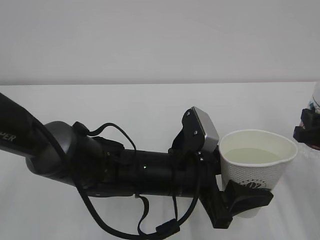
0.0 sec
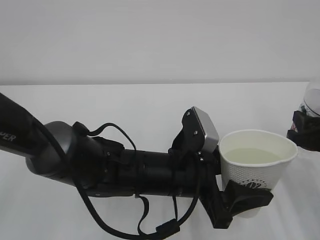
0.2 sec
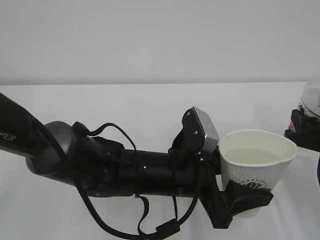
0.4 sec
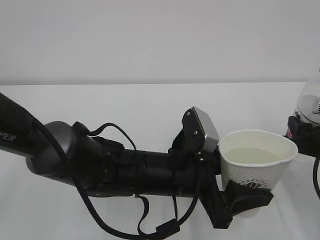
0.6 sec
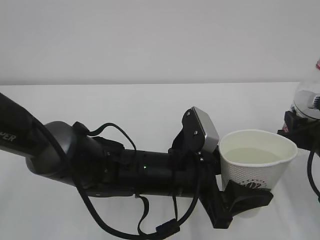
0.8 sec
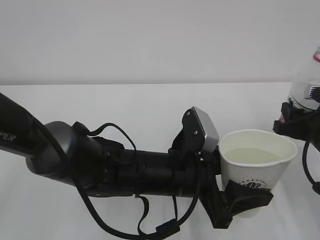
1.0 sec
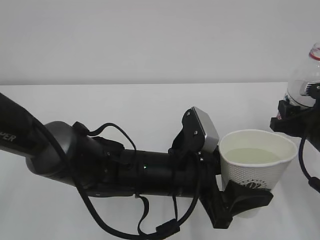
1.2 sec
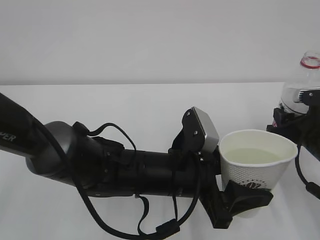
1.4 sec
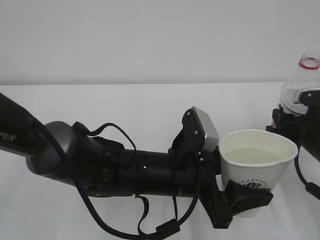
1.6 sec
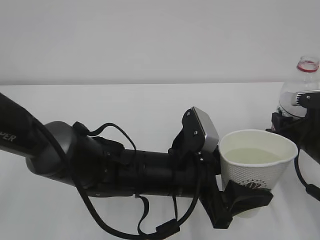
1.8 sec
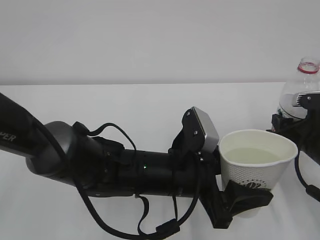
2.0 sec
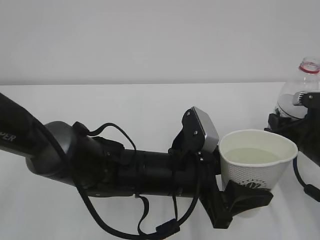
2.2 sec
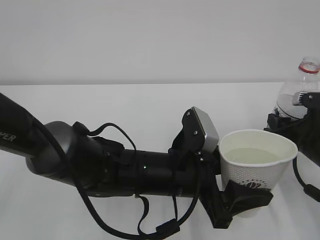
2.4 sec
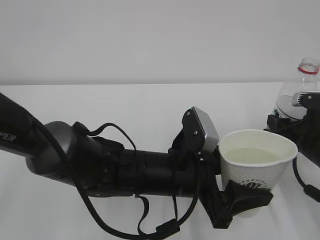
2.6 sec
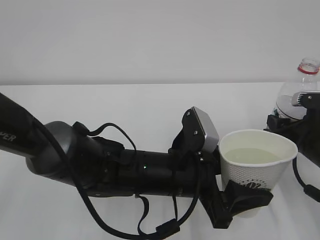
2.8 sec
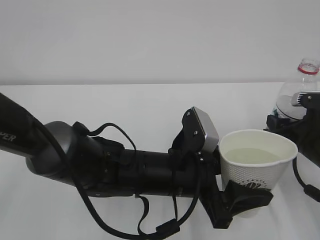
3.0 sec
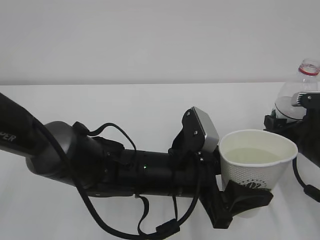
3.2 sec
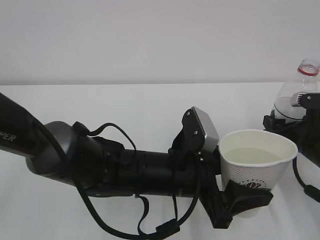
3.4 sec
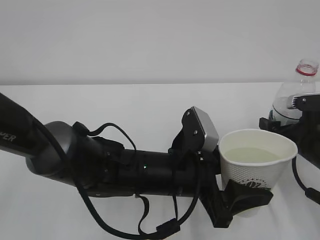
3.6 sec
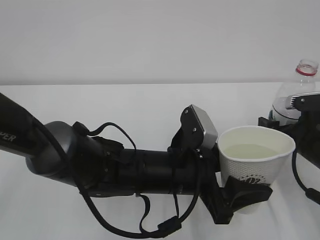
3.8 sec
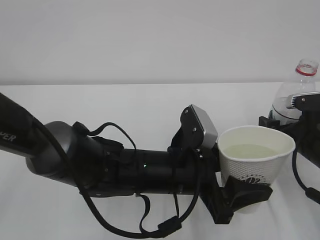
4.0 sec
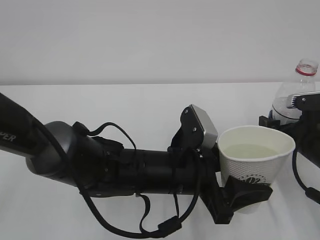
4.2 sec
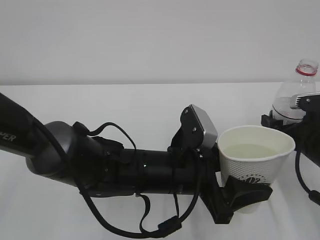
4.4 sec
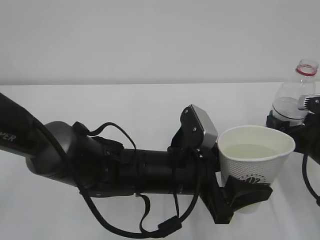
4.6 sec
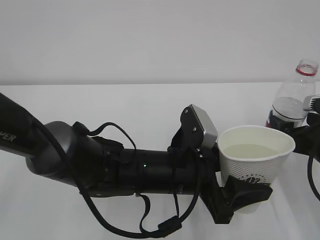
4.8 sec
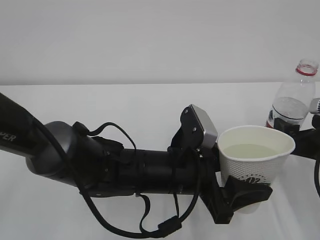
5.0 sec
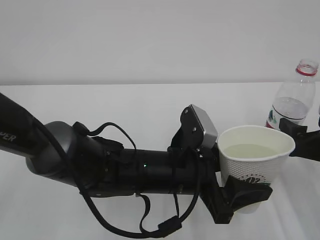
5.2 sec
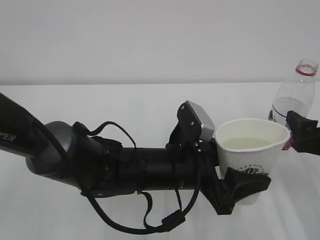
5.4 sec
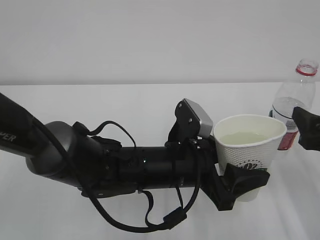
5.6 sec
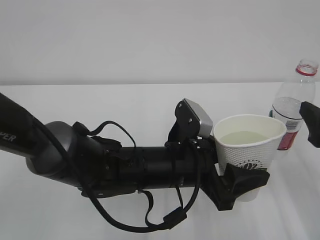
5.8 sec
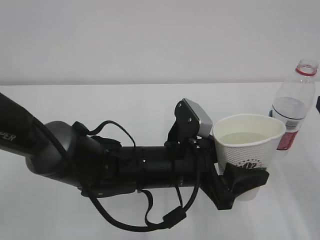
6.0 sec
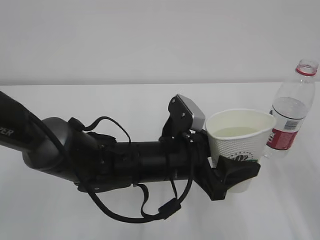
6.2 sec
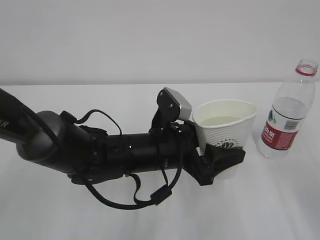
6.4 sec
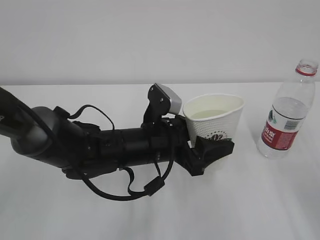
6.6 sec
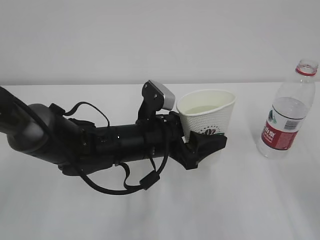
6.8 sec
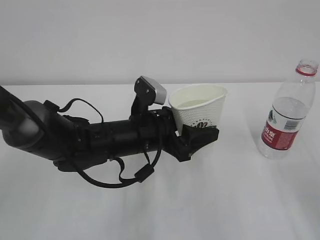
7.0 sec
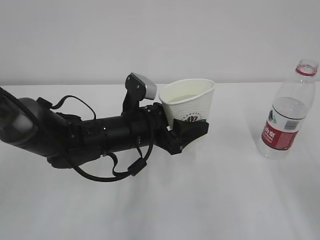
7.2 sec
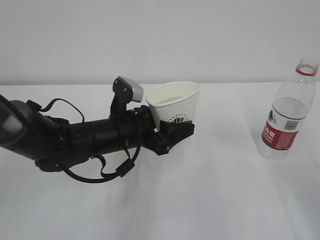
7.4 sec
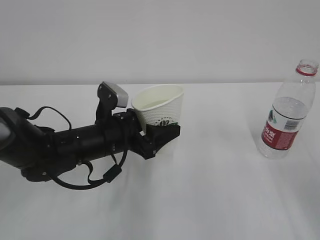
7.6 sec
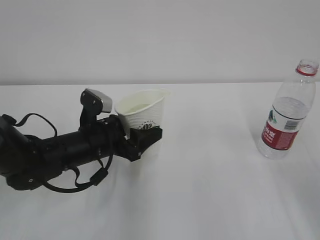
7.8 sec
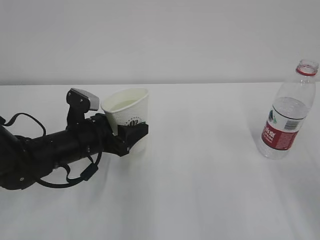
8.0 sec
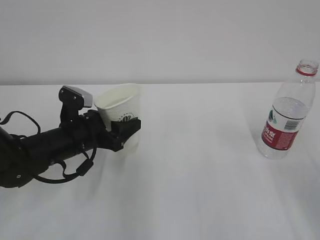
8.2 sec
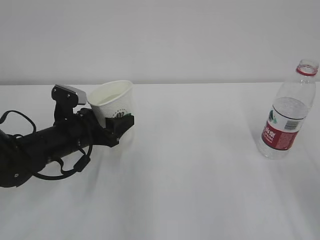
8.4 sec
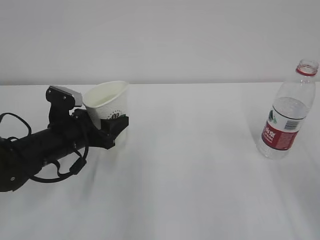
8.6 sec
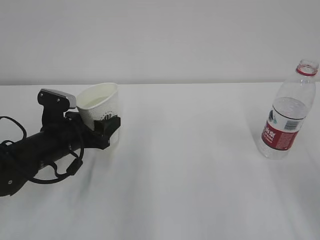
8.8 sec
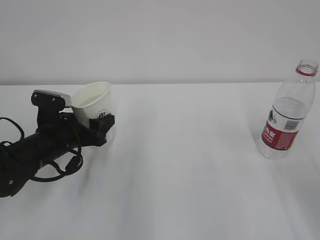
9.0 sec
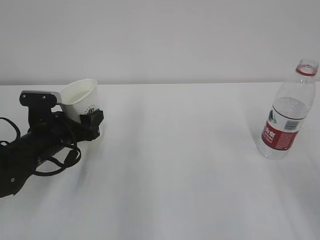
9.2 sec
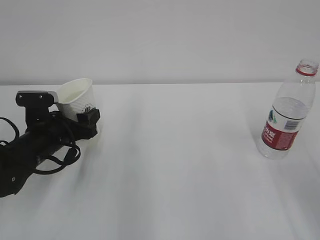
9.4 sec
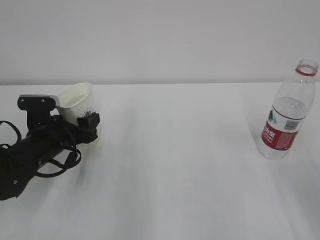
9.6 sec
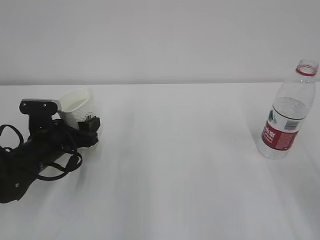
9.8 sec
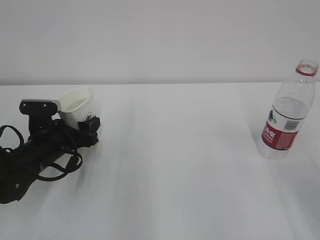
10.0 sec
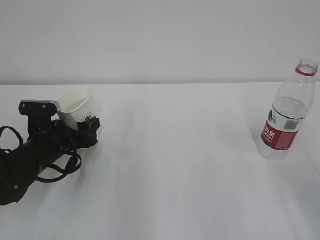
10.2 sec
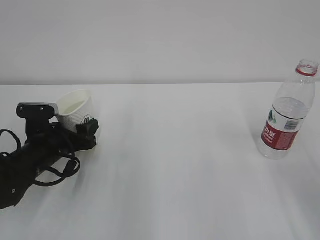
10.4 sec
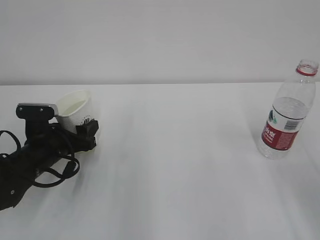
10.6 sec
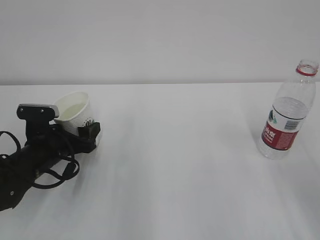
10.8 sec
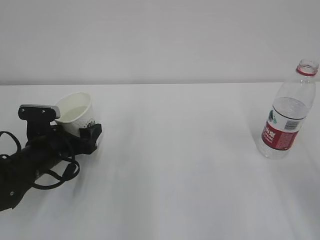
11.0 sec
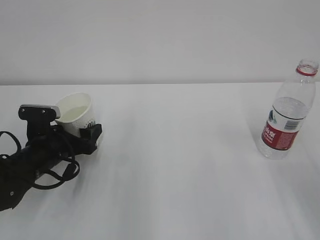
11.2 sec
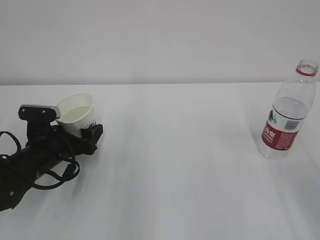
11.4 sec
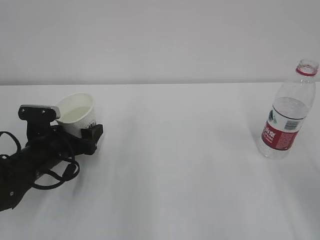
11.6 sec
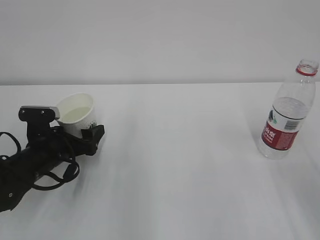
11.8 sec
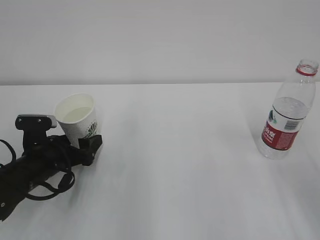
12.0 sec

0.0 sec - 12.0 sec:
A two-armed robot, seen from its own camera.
0.0 sec - 1.6 sec: The right gripper shifts by some 5 cm.
1.6 sec - 3.0 sec: There are only small adjustments of the grippers.
3.0 sec - 4.4 sec: The right gripper opens.
4.4 sec - 6.0 sec: The right gripper travels upward and backward by some 15 cm.
6.0 sec - 7.6 sec: The left gripper heads to the left and forward, covering some 15 cm.
7.6 sec - 9.0 sec: The left gripper shifts some 10 cm to the left.
9.0 sec - 10.4 sec: The grippers stay close to where they were, moving slightly.
10.4 sec - 12.0 sec: The left gripper opens up.

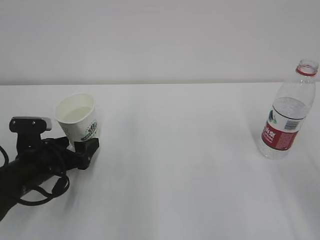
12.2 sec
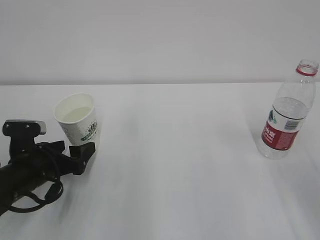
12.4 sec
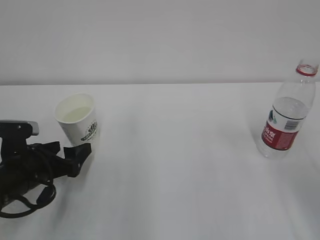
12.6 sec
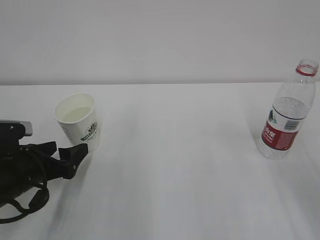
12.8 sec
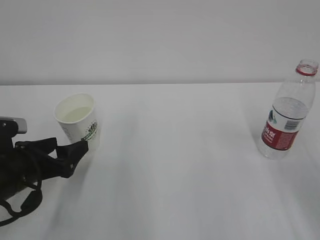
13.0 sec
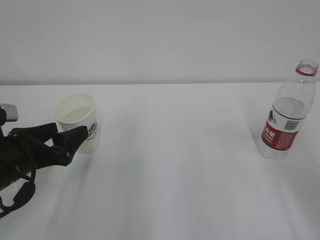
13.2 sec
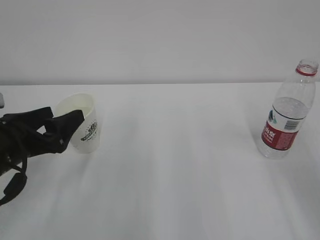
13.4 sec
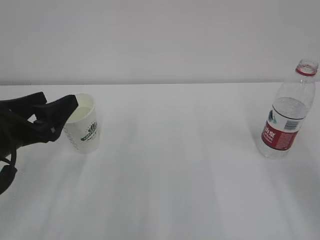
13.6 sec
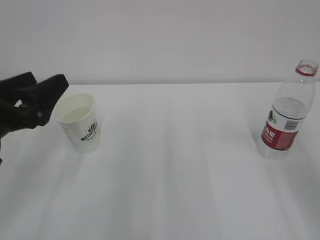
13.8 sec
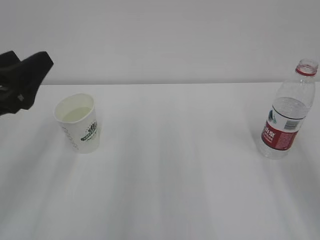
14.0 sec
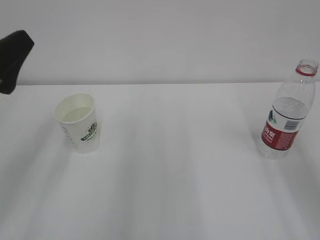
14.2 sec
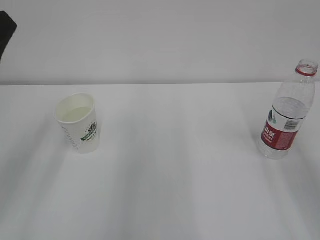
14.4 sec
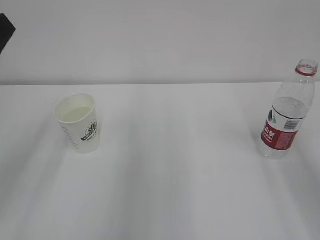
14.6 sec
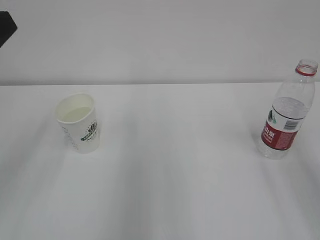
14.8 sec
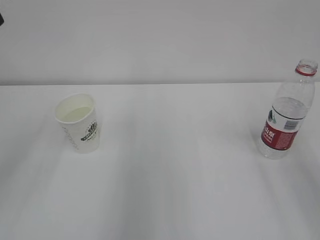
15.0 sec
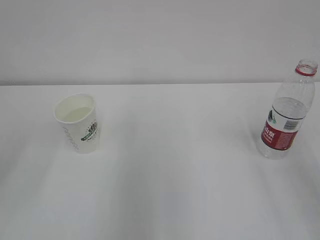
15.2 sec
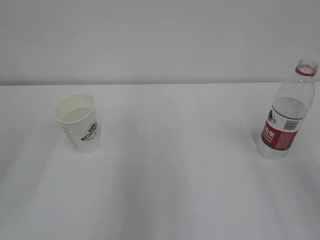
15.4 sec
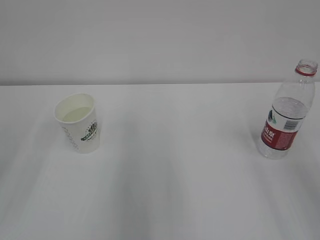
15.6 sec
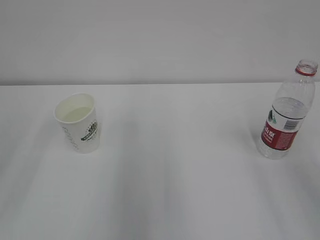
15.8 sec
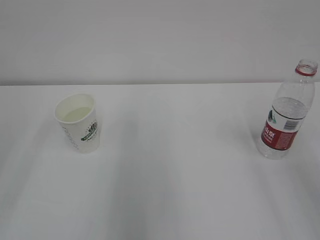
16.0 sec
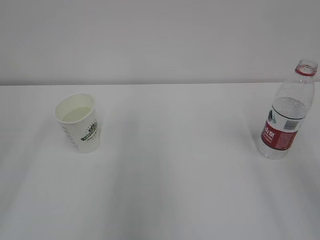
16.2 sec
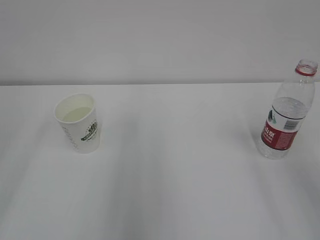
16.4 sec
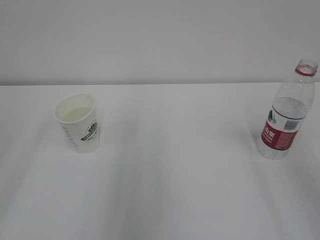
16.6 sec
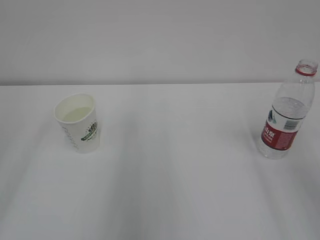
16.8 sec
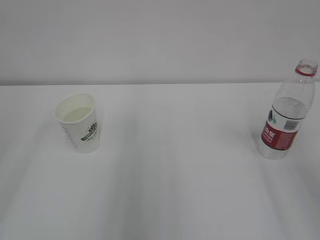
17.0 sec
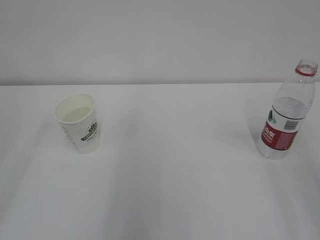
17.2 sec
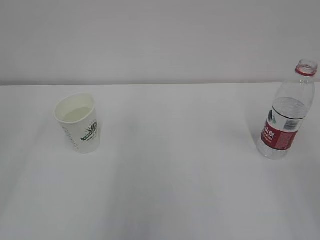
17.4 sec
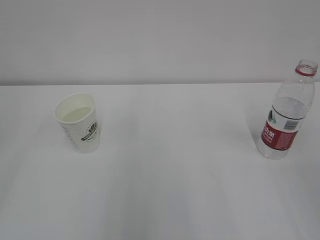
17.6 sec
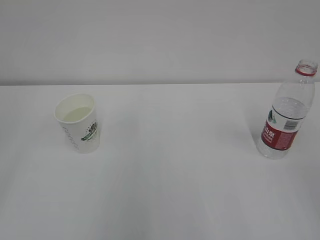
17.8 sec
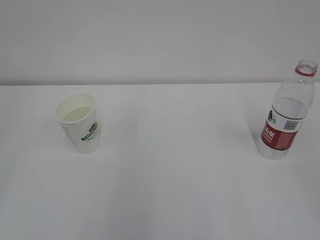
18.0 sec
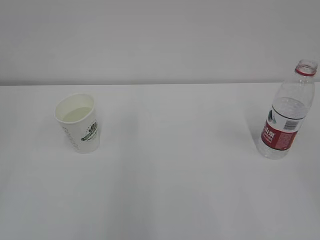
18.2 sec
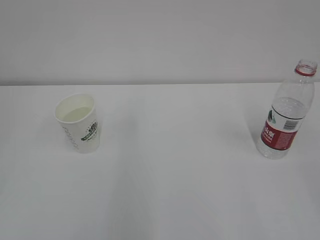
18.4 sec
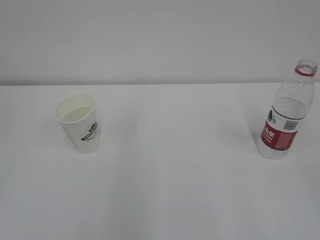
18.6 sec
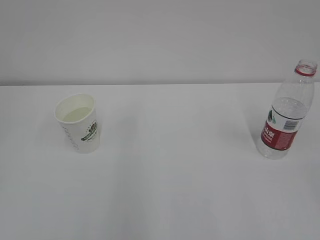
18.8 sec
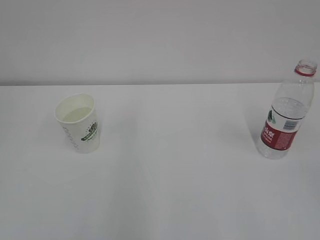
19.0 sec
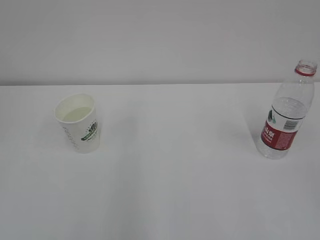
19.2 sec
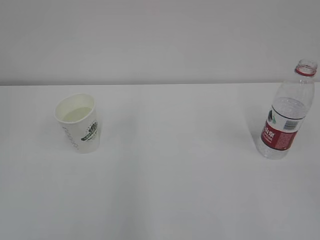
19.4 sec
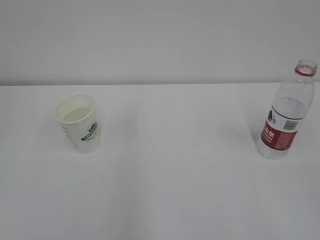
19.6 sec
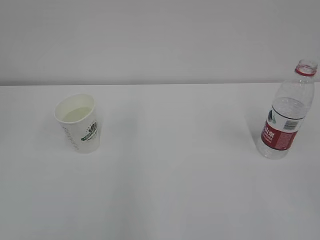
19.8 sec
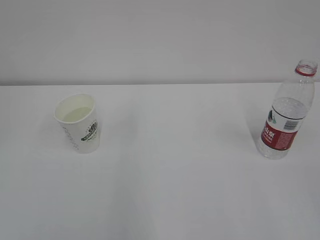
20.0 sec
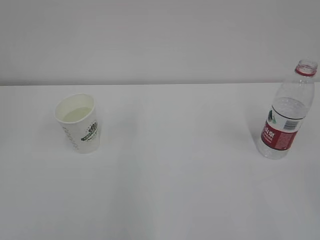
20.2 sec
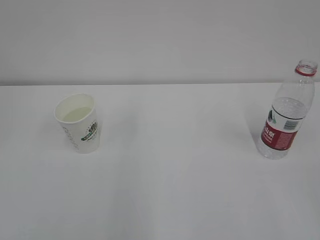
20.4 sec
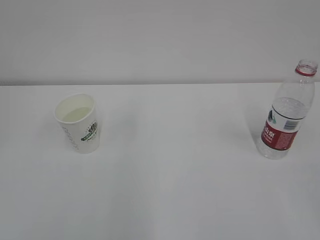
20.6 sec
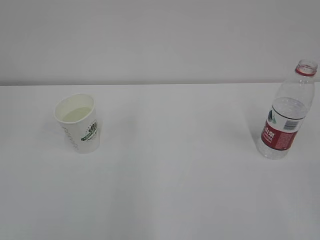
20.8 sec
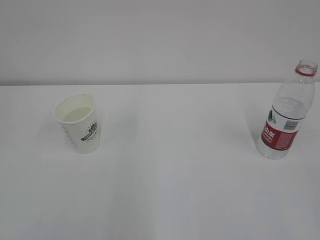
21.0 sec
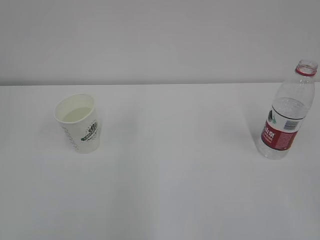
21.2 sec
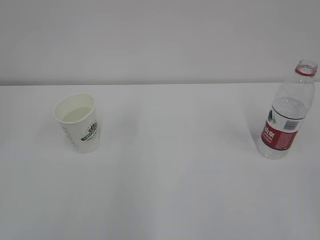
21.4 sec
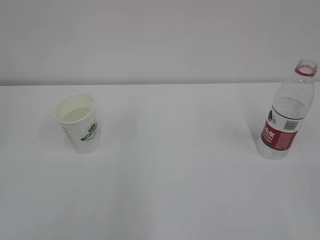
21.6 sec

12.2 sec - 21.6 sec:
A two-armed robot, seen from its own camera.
12.2 sec - 13.8 sec: The left gripper shifts about 15 cm upward and backward.
13.8 sec - 15.4 sec: The left gripper is displaced upward and backward by some 15 cm.
